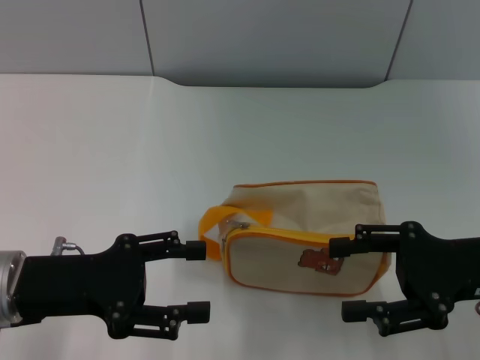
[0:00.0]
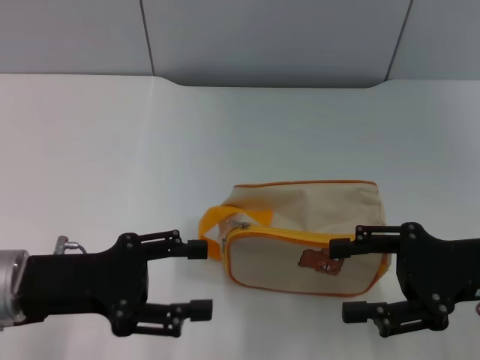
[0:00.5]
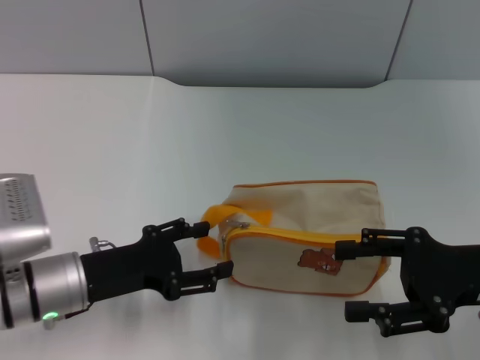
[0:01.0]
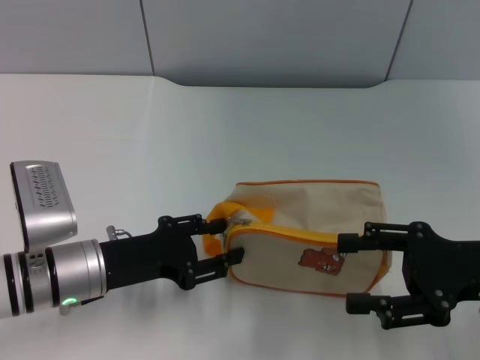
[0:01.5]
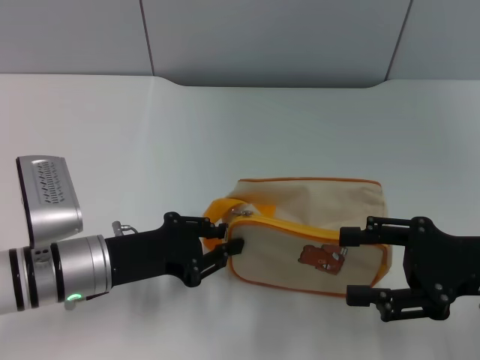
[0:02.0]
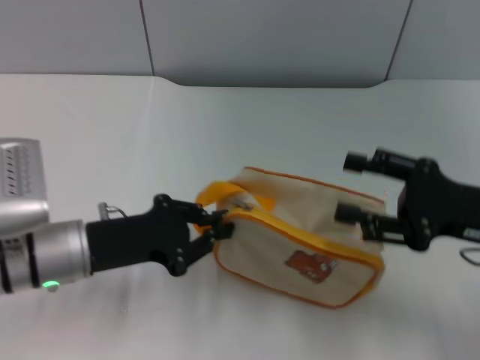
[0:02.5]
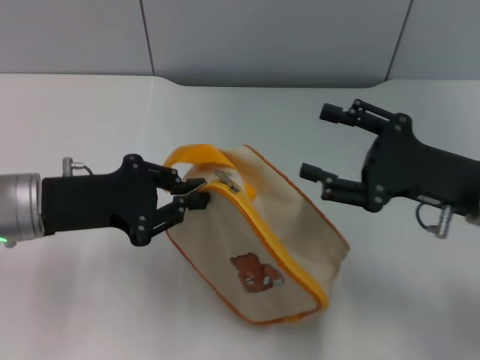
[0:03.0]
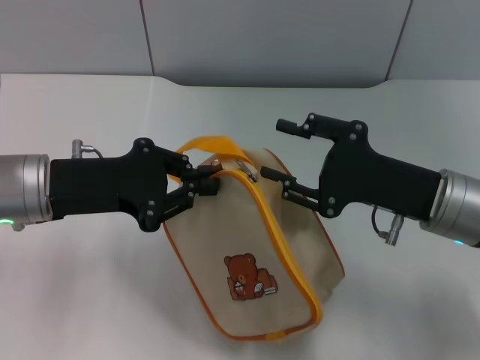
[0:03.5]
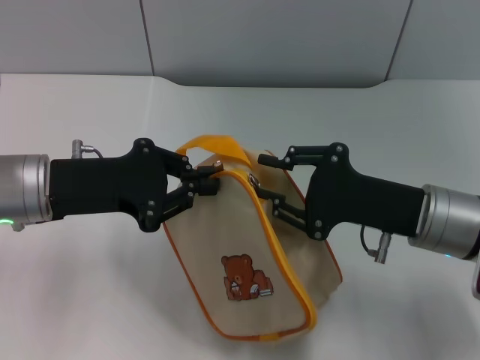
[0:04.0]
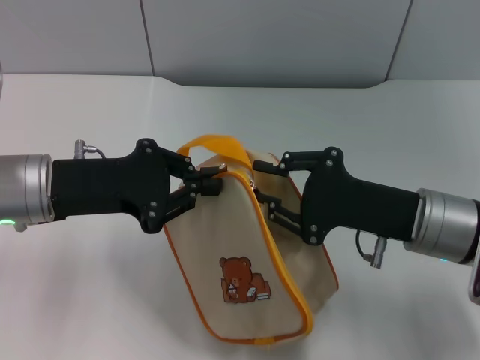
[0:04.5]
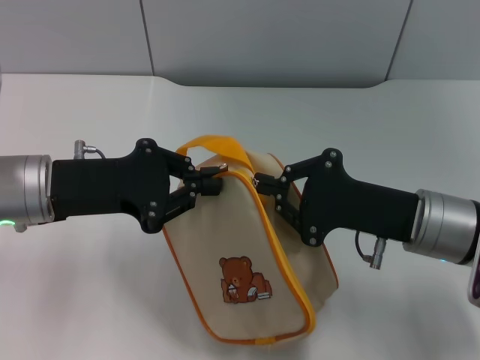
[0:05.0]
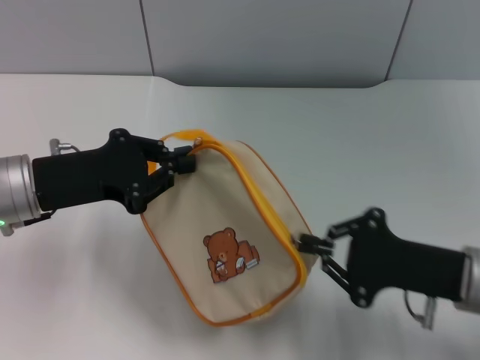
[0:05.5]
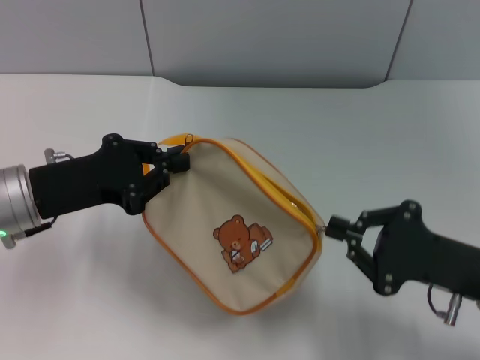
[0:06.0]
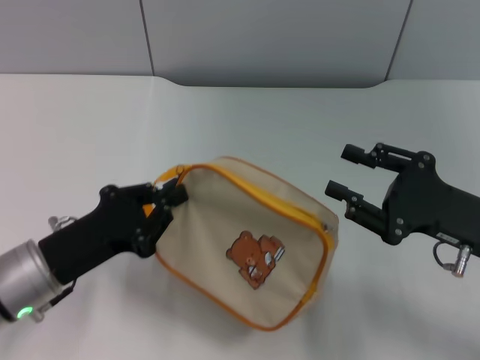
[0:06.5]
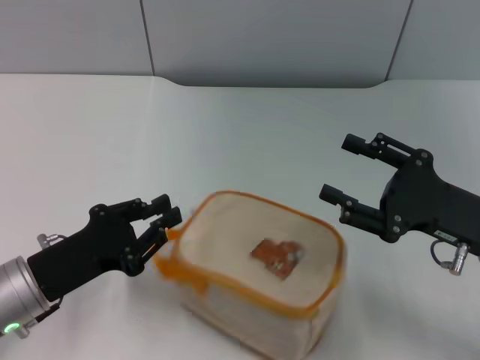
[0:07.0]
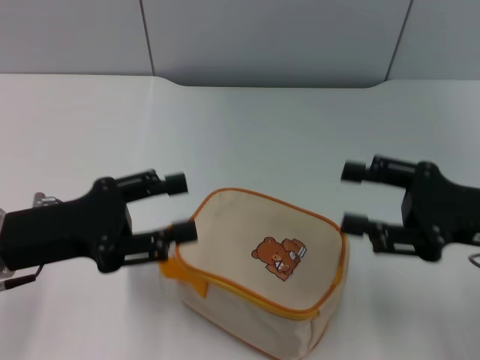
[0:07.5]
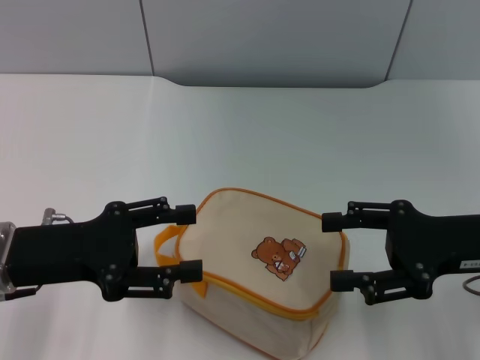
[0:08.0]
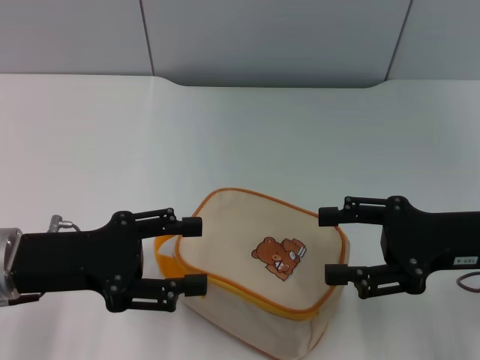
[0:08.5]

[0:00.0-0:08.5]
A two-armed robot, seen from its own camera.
Step, 0:00.0 to 0:02.5: Pick up the bag with left gripper.
Step, 0:03.5 to 0:06.0: Unzip the zipper of bag with right gripper.
0:00.0 to 0:02.0: The left gripper shifts about 5 cm downward and to the right, and closes.
0:02.0 to 0:04.0: The left gripper heads upward, covering approximately 10 cm, while the right gripper is displaced to the left by approximately 10 cm, and closes up.
0:04.0 to 0:06.5: The right gripper heads to the right, covering about 5 cm. The left gripper travels downward and backward by some 10 cm.
0:06.5 to 0:08.5: The right gripper opens up. Meanwhile the left gripper is displaced upward by some 5 cm, and opens up.

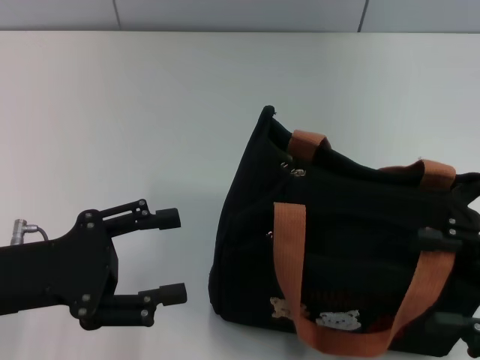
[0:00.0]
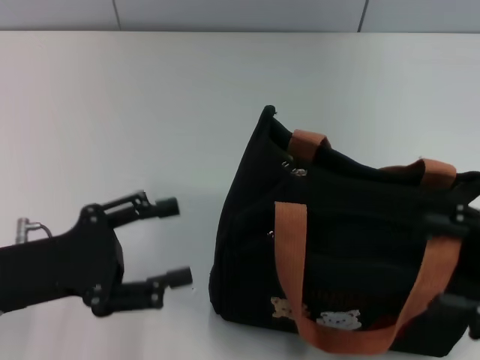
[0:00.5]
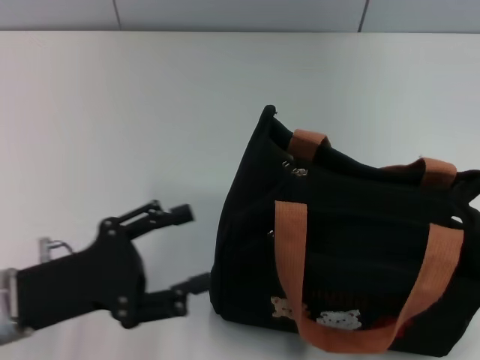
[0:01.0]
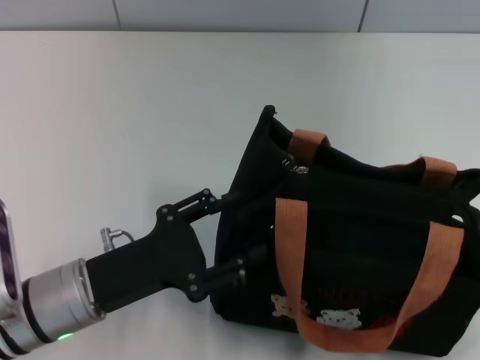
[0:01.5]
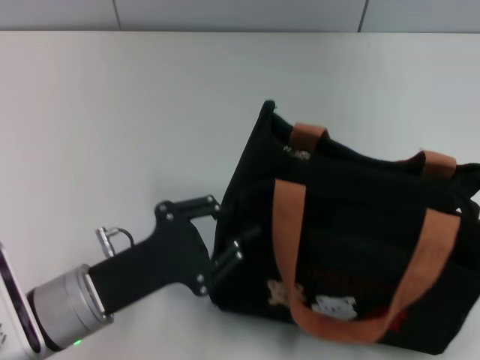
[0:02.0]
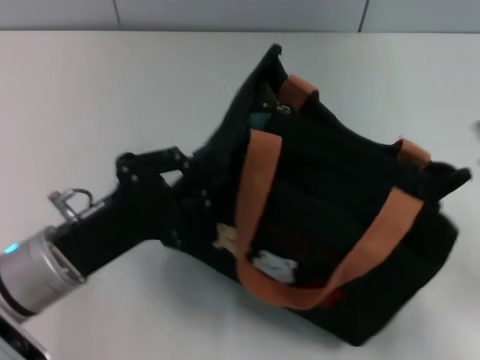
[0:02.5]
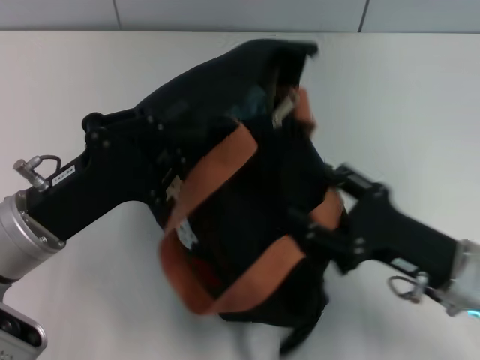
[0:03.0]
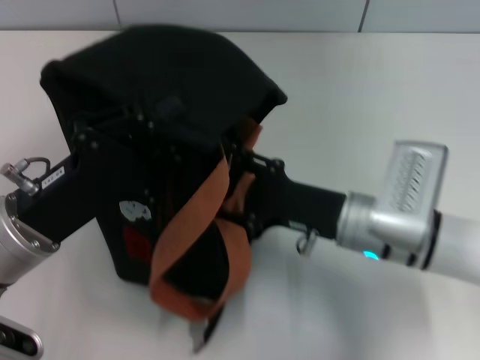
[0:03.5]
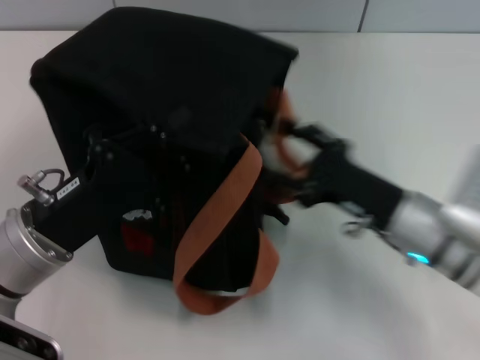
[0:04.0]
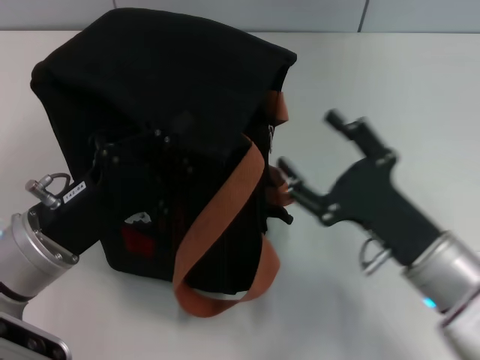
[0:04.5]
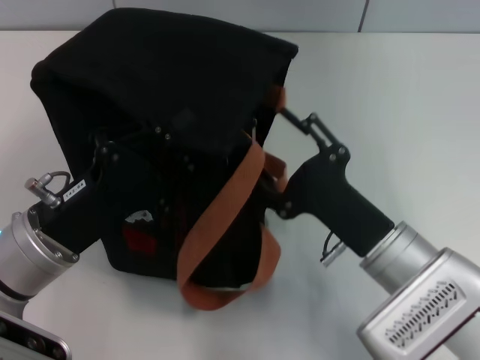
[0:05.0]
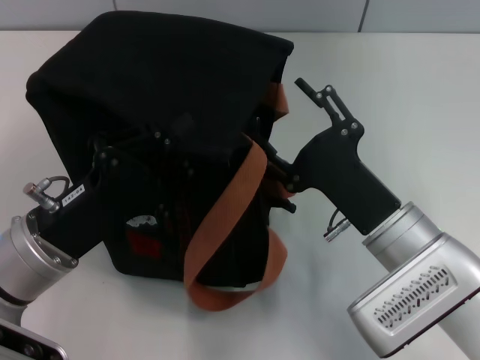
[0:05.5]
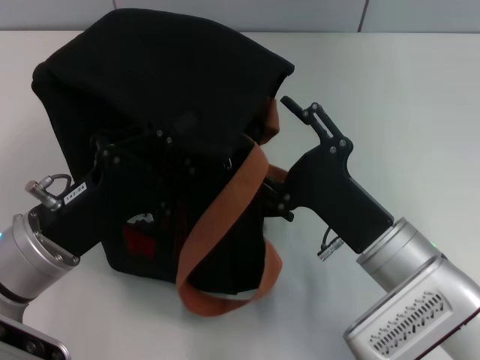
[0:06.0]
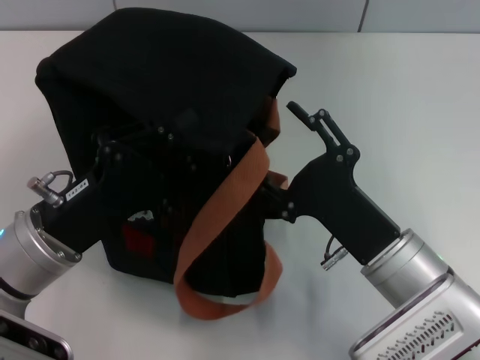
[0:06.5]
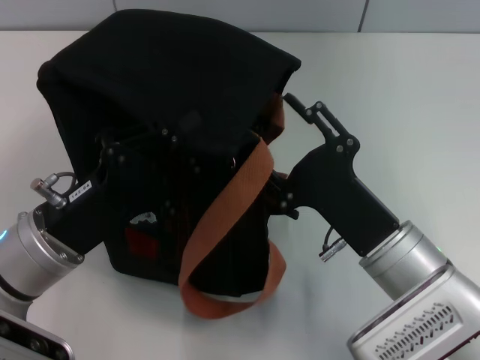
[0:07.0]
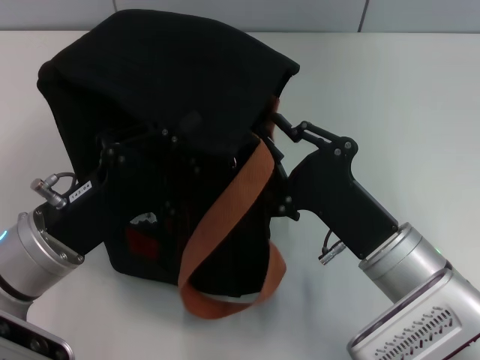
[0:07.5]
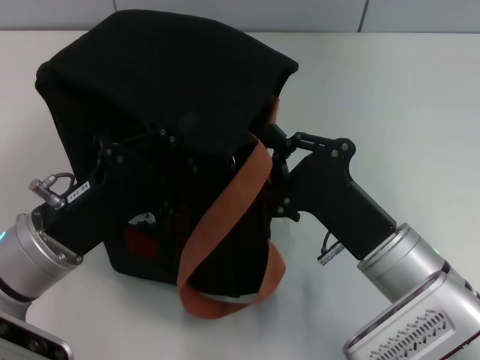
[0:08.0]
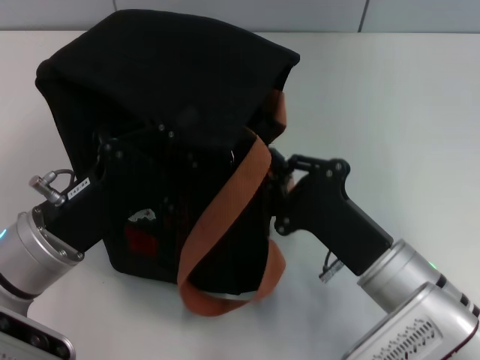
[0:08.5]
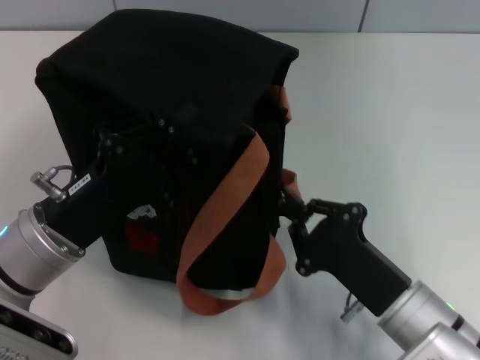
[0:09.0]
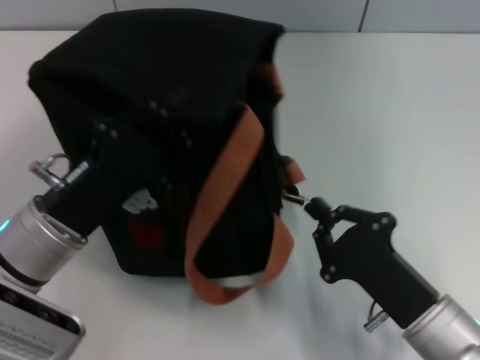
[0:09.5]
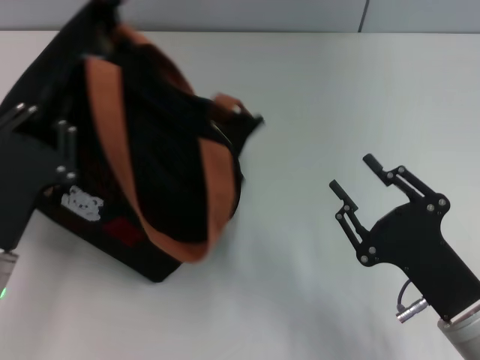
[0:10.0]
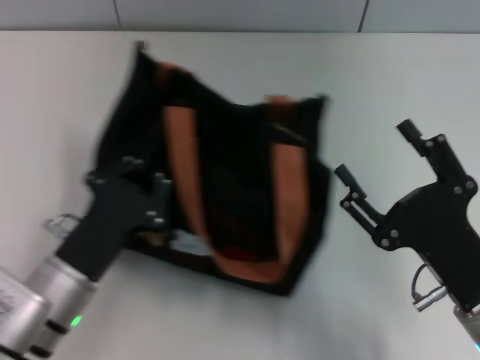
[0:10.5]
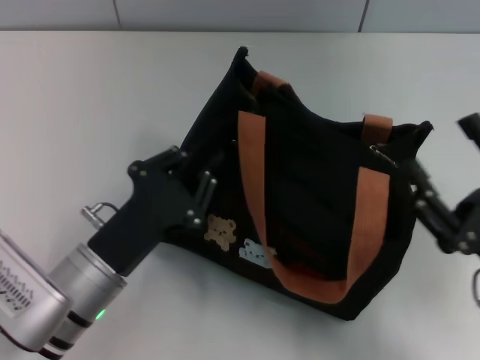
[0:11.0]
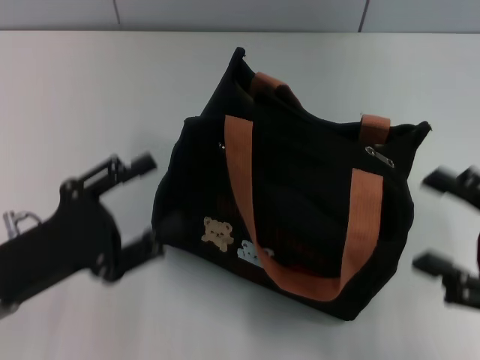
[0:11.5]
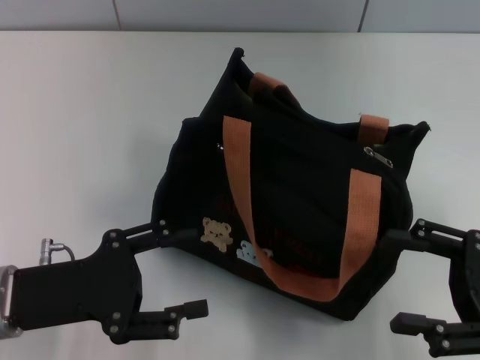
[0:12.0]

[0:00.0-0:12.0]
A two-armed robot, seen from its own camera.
Step, 0:00.0 to 0:09.5: Pull open the zipper with your right hand.
Step, 0:10.0 to 0:11.0: Grab the bag with your left hand.
0:00.0 to 0:02.0: The left gripper is displaced to the right and downward by some 10 cm, and closes its fingers.
0:02.0 to 0:04.0: The left gripper shifts by approximately 5 cm, and closes up; the right gripper goes some 20 cm to the left, forward and downward.
0:04.0 to 0:06.0: The right gripper changes place by roughly 5 cm.
0:06.0 to 0:08.0: The right gripper closes its fingers.
0:08.0 to 0:10.0: The left gripper ends up some 5 cm from where it was, while the right gripper travels to the right and backward by about 10 cm.
0:10.0 to 0:12.0: The left gripper goes to the right and returns, some 5 cm each way, and opens. Meanwhile the right gripper travels to the right and upward by some 10 cm, and opens up.

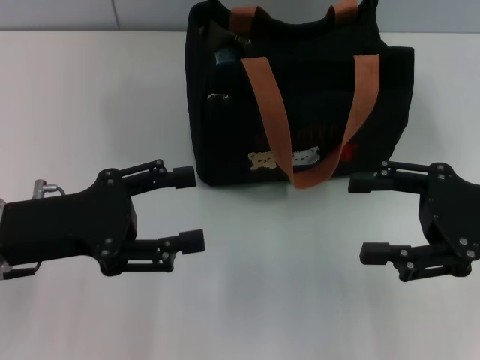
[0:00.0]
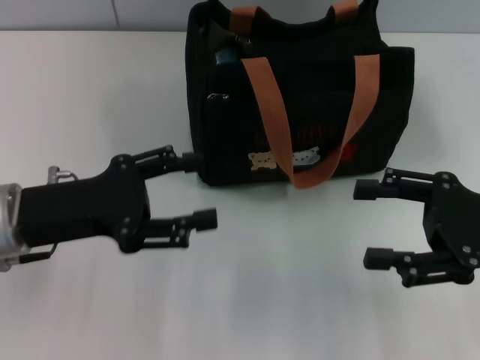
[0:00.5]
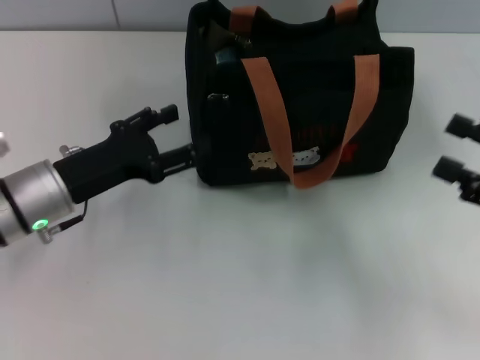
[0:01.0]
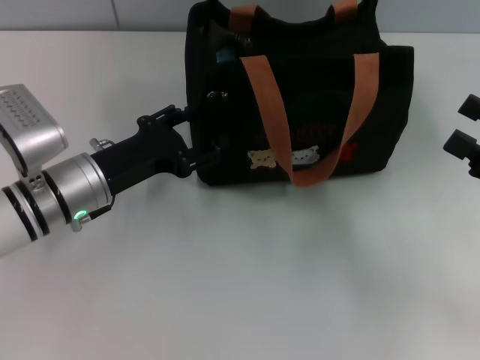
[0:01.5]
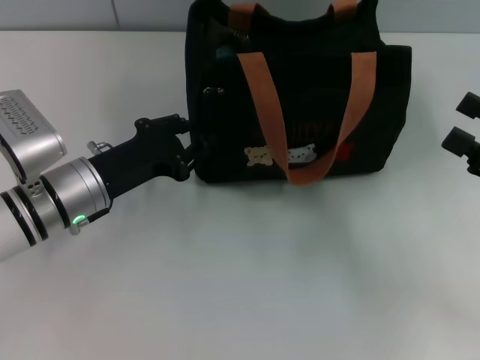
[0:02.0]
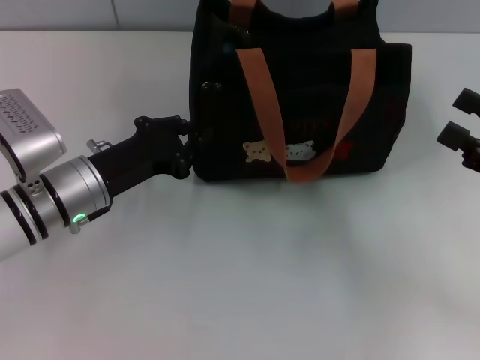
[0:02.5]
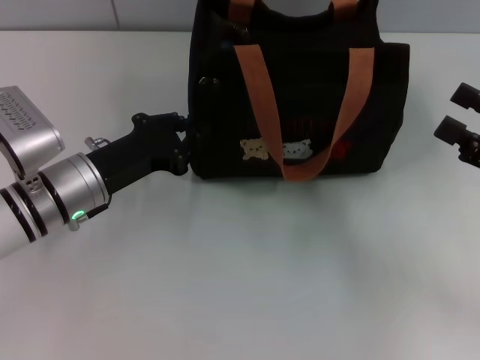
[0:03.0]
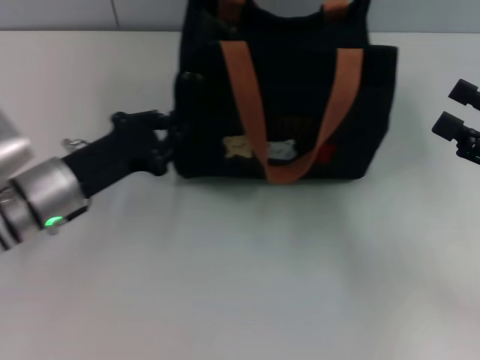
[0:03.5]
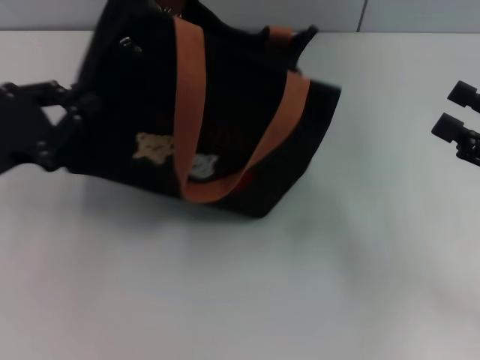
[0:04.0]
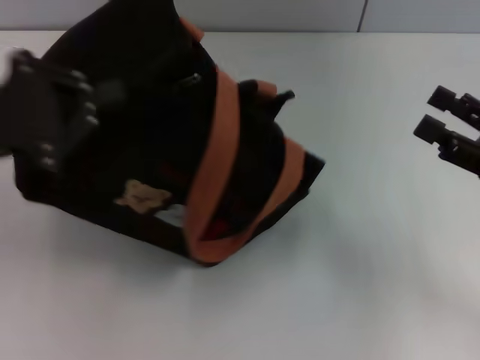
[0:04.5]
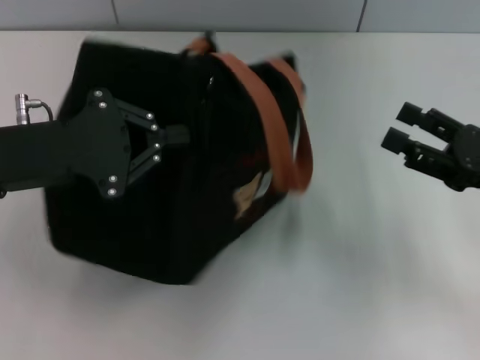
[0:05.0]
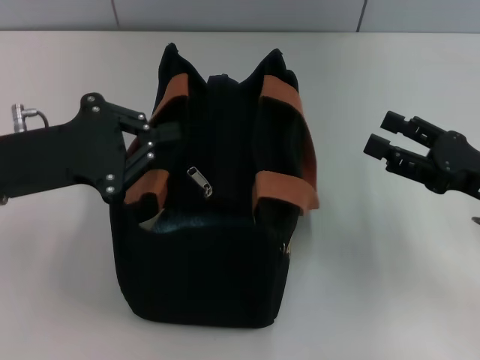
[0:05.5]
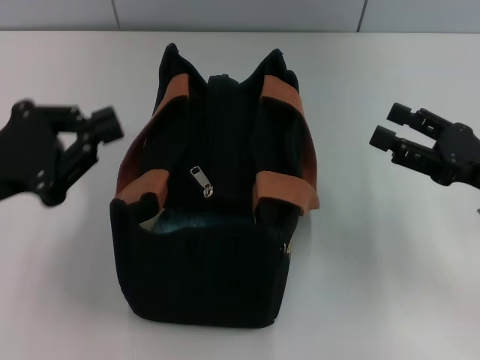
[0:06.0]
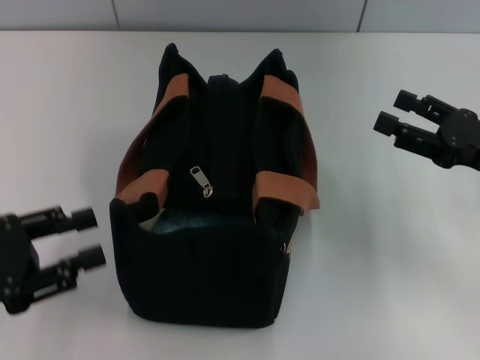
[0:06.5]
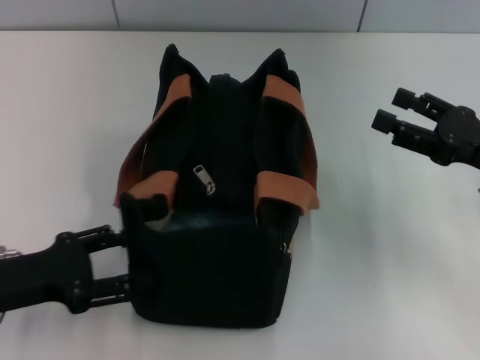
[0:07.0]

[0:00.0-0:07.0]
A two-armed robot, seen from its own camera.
0:00.0 to 0:02.0: The right gripper goes about 5 cm to the right. The left gripper moves downward and forward, approximately 10 cm, and closes.
0:02.0 to 0:03.5: The left gripper closes.
0:03.5 to 0:05.0: The left gripper is displaced upward by about 10 cm.
0:05.0 to 0:07.0: The left gripper shifts some 10 cm downward and backward, and opens up.
